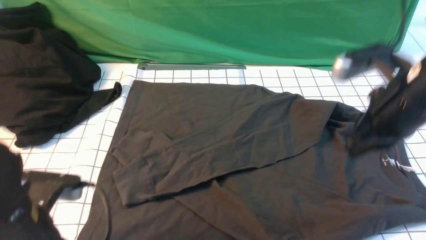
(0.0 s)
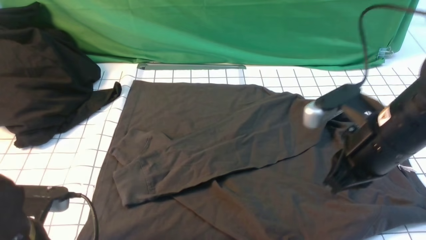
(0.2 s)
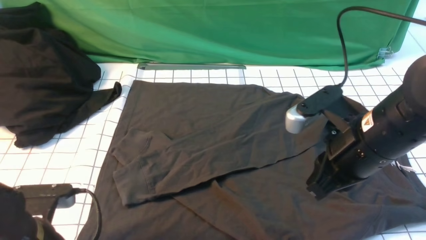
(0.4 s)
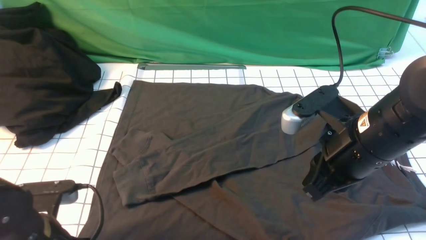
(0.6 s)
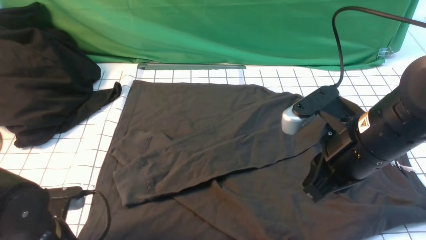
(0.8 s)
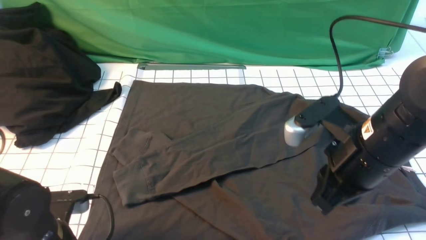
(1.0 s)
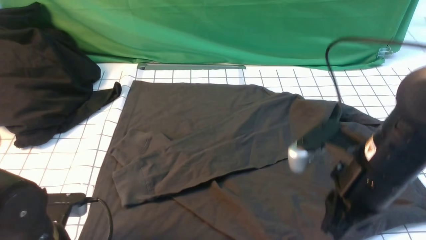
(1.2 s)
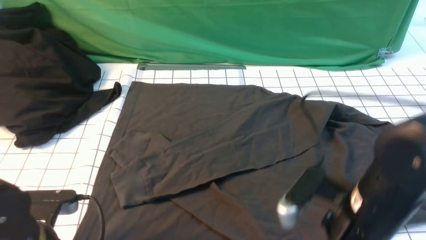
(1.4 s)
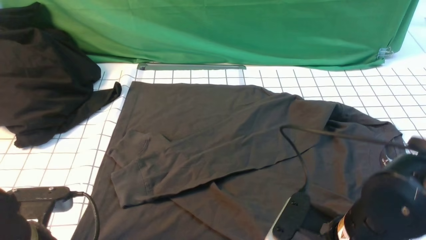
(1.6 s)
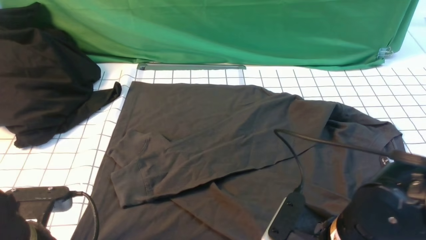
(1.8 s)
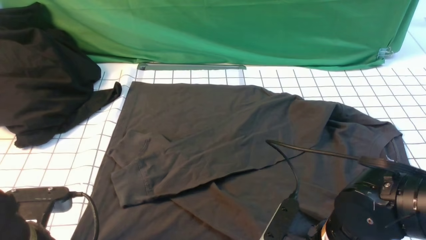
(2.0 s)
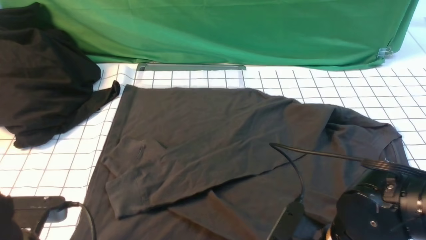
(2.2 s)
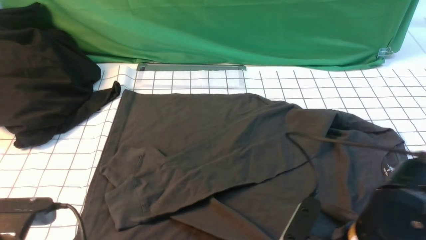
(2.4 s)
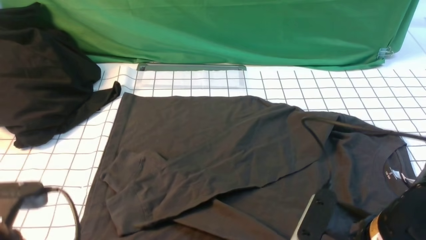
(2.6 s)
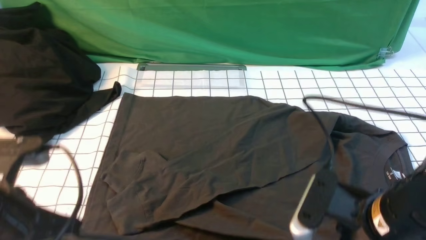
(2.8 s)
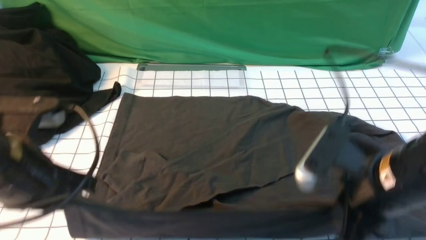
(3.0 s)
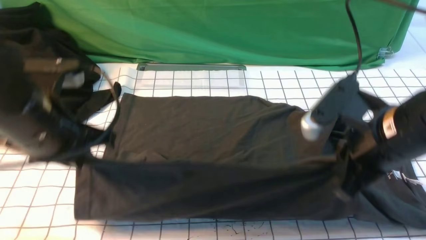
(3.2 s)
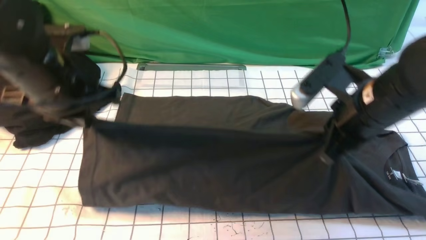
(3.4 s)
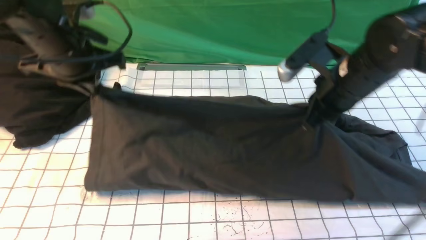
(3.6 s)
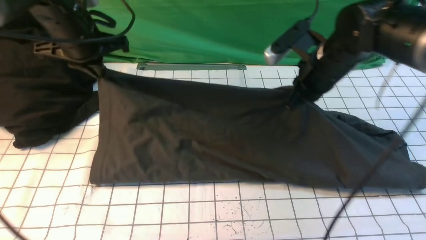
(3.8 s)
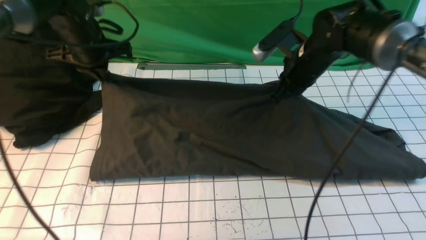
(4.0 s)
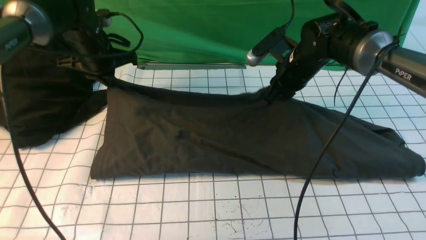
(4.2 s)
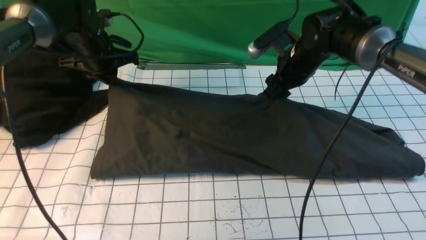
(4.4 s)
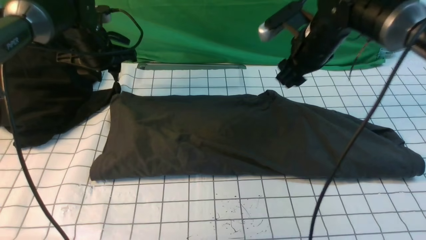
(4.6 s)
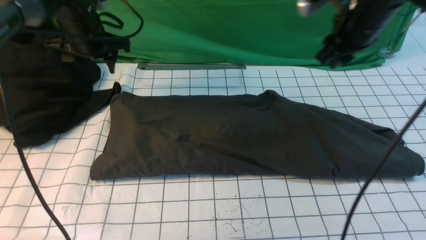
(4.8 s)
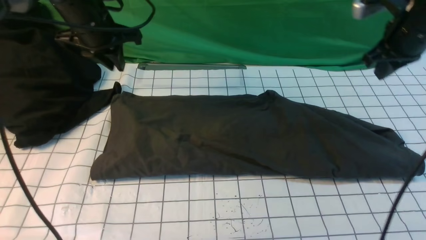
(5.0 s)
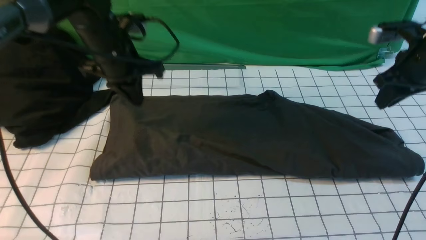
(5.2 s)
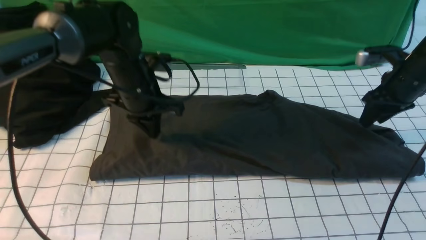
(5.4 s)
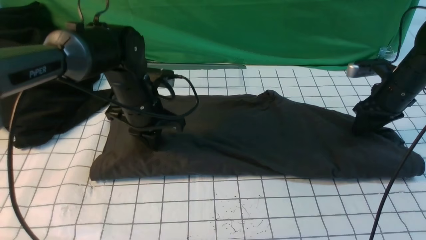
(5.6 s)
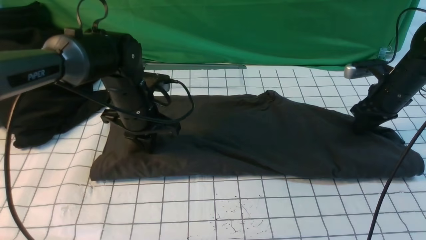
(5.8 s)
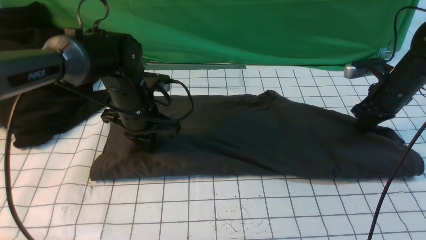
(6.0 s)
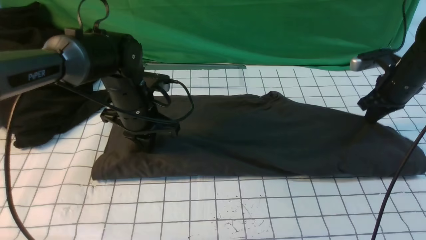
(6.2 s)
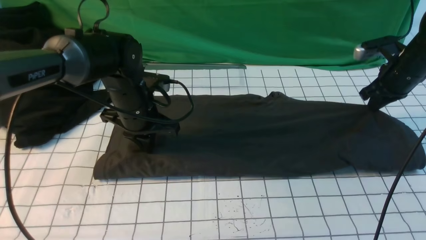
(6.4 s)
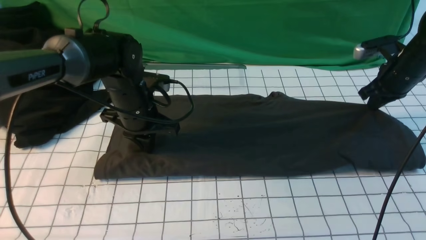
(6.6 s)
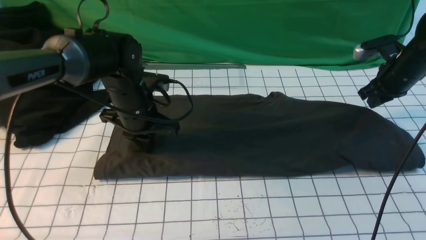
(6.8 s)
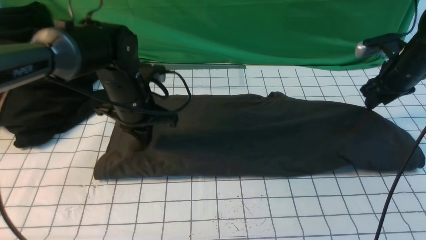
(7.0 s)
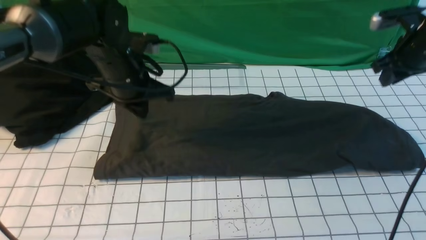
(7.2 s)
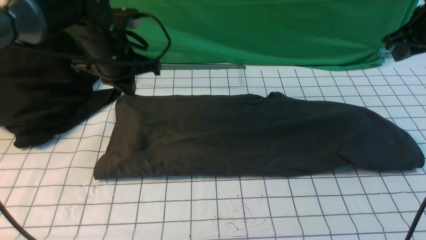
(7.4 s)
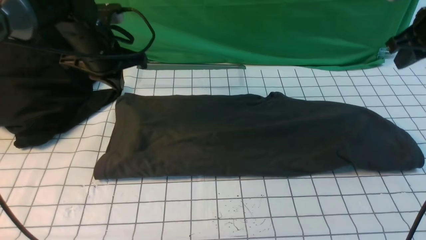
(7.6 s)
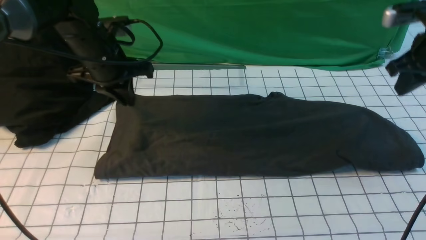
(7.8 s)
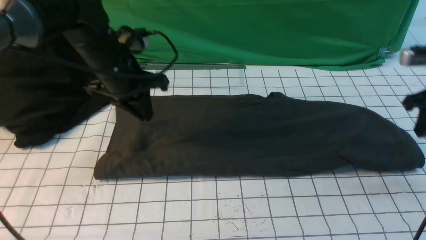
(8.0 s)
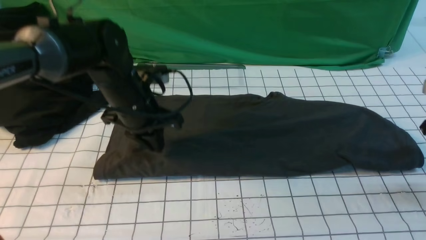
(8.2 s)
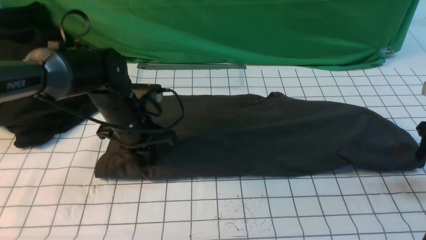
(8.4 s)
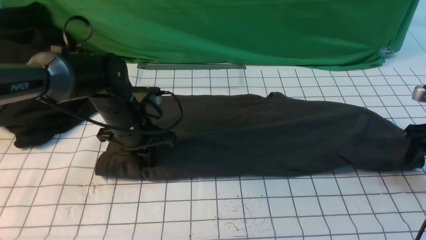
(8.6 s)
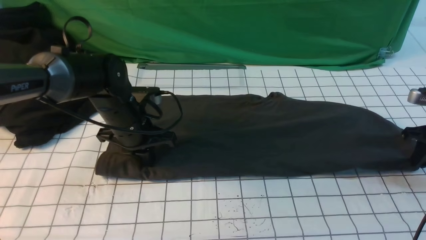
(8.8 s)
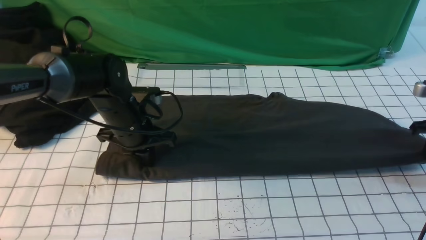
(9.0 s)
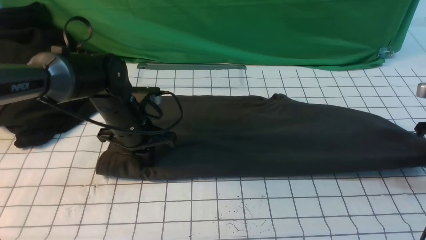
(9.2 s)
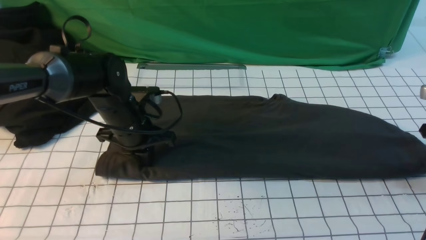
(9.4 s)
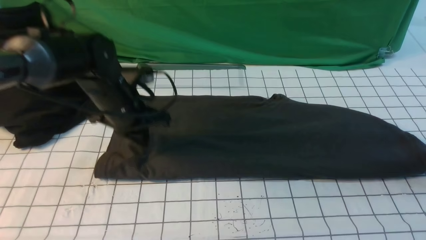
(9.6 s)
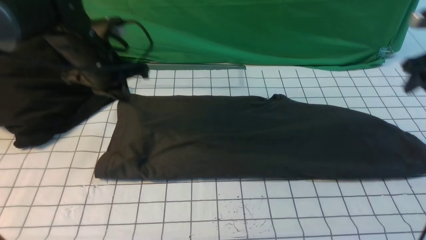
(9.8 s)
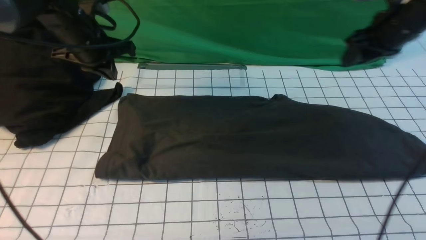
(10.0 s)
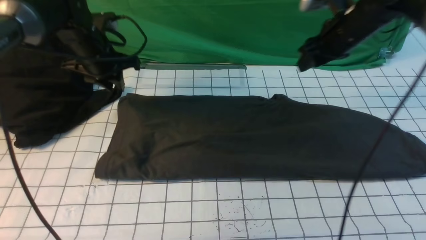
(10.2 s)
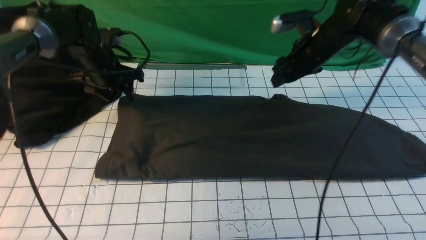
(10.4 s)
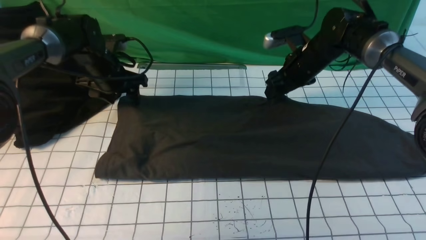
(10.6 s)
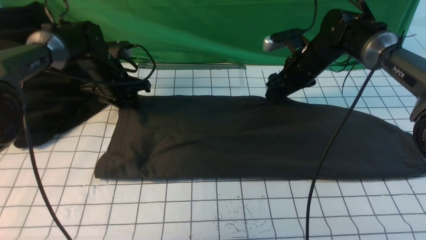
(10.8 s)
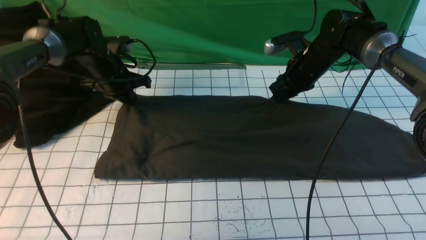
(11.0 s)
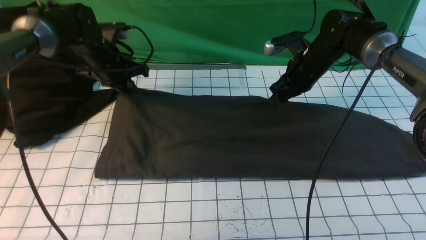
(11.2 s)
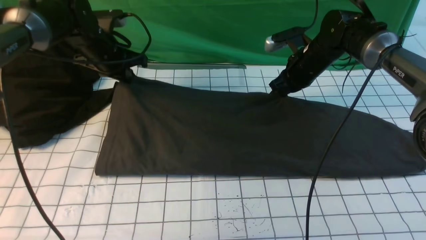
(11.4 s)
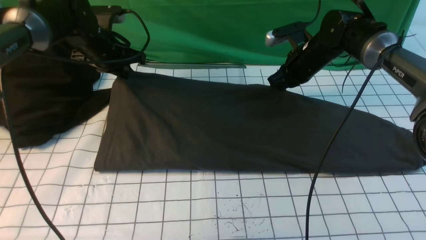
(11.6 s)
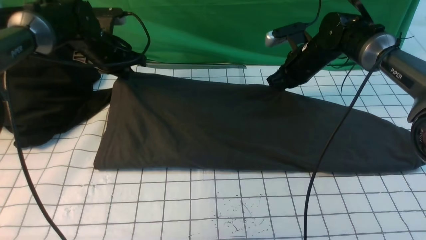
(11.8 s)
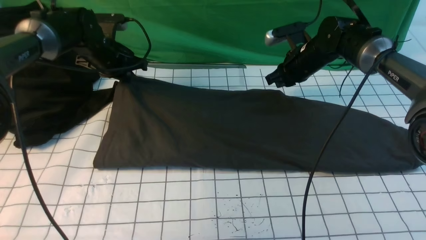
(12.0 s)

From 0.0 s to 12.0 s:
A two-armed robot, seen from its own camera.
Step, from 0.0 s to 2.4 s: use both arms simultaneously to clamp the lower edge of the clothing fabric.
Step, from 2.6 s to 4.6 s: use both arms to drag the lower edge of the fabric forward and fold it over the upper edge.
From 0.0 s to 1.6 s: The left gripper opens, then closes once more. The right gripper heads backward, downward and to the left, covering about 20 cm, and opens up.
From 1.6 s to 3.0 s: Both grippers travel together upward, some 10 cm. The right gripper closes up.
From 3.0 s to 4.4 s: The grippers both shift forward by roughly 30 cm. The right gripper opens up.
From 4.4 s to 6.0 s: The right gripper heads to the right, covering roughly 20 cm, and closes up, while the left gripper is displaced backward and to the right by roughly 15 cm, and closes its fingers.
From 6.0 s to 7.6 s: The right gripper goes about 15 cm upward, and opens and closes again, while the left gripper heads upward and to the left, covering approximately 10 cm.
From 7.6 s to 9.0 s: The right gripper goes approximately 15 cm downward and to the right, and opens, then closes again; the left gripper shifts roughly 10 cm downward and backward.
From 9.0 s to 10.4 s: The left gripper moves forward and to the left, some 15 cm, and opens; the right gripper heads to the left and forward, covering about 25 cm, and opens its fingers.
From 10.4 s to 12.0 s: The left gripper closes. The right gripper closes.

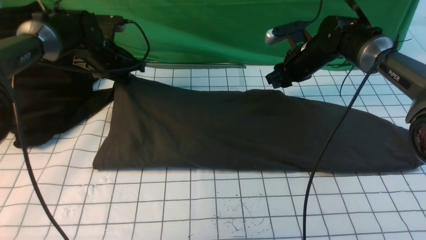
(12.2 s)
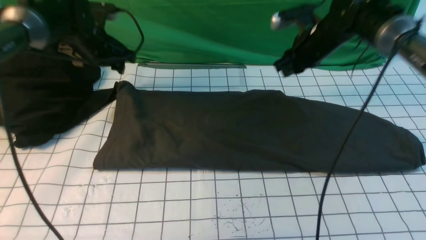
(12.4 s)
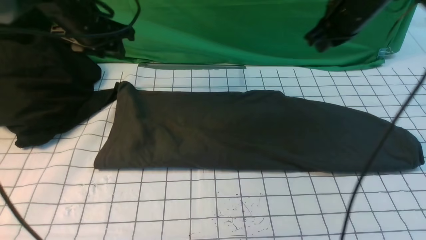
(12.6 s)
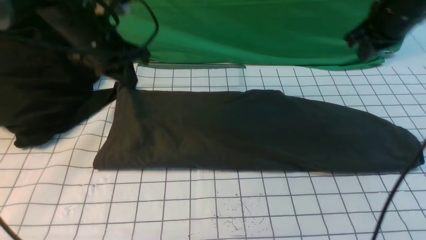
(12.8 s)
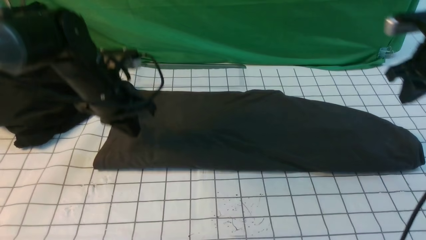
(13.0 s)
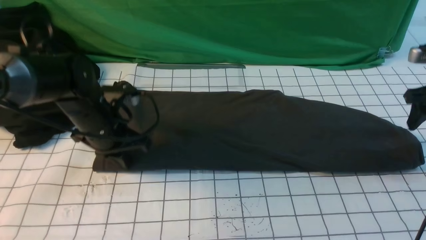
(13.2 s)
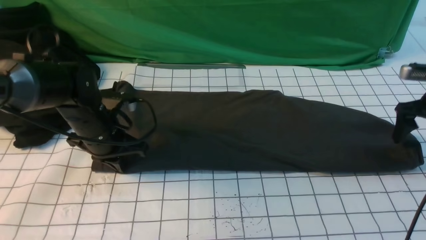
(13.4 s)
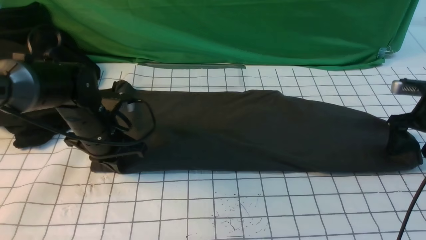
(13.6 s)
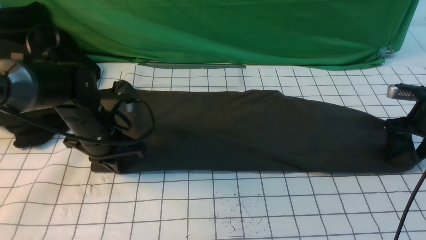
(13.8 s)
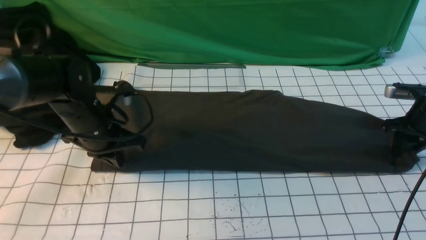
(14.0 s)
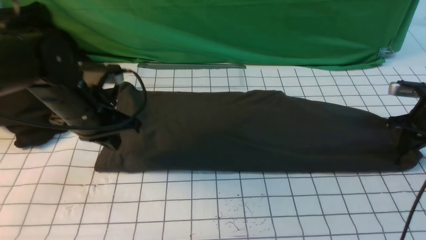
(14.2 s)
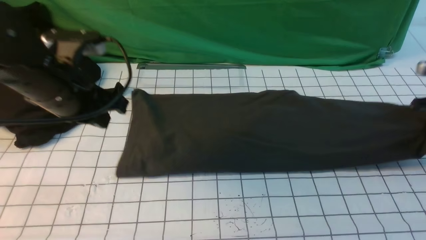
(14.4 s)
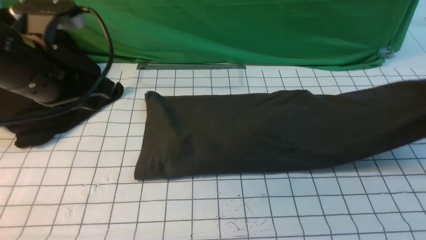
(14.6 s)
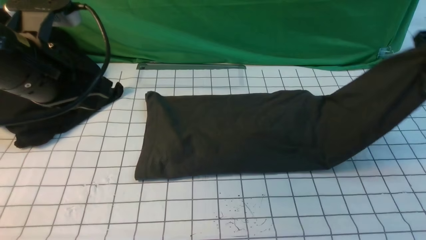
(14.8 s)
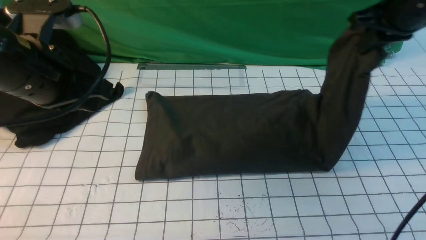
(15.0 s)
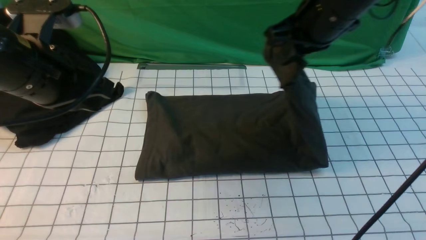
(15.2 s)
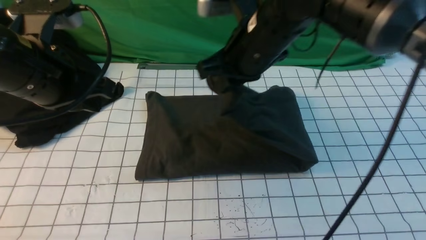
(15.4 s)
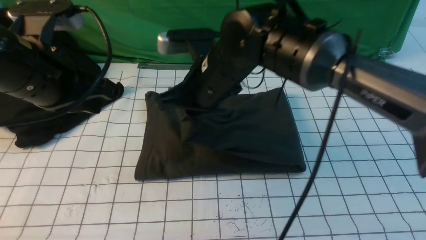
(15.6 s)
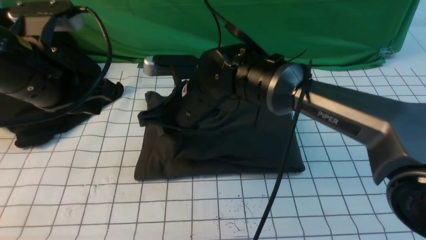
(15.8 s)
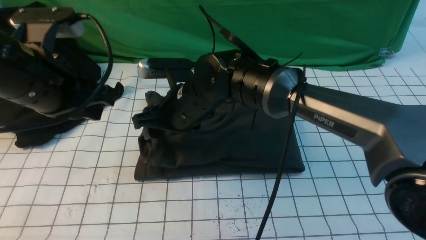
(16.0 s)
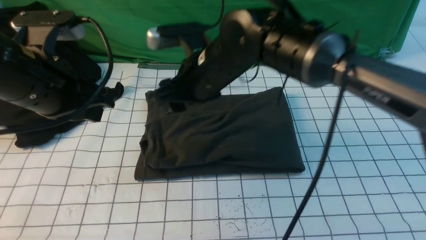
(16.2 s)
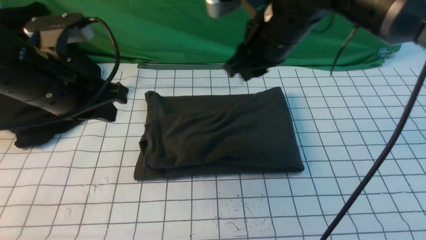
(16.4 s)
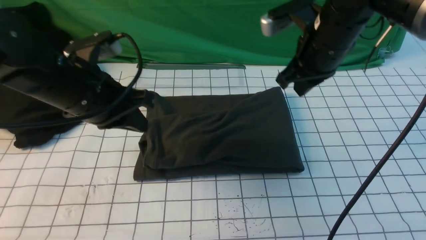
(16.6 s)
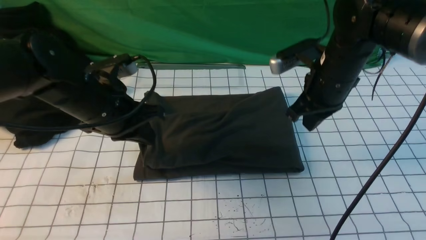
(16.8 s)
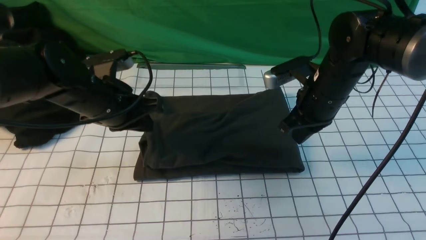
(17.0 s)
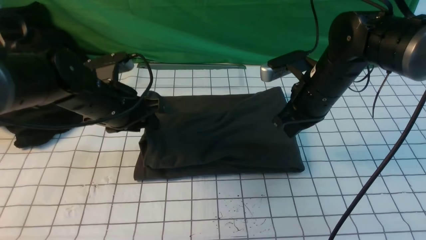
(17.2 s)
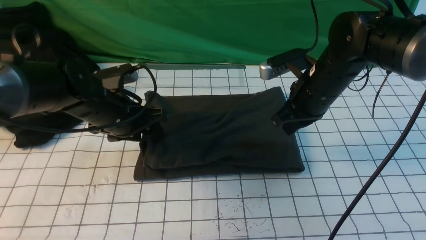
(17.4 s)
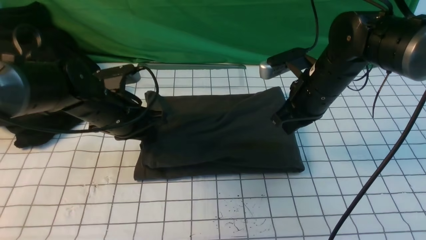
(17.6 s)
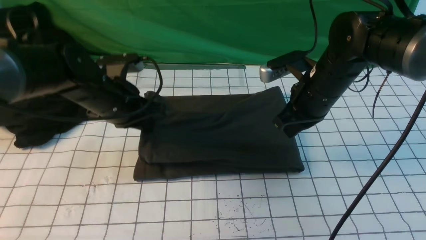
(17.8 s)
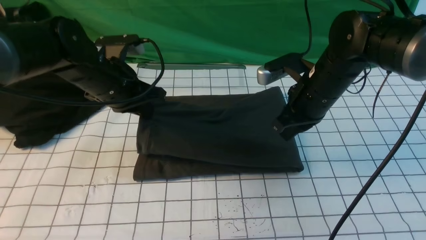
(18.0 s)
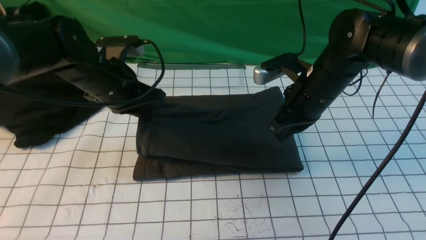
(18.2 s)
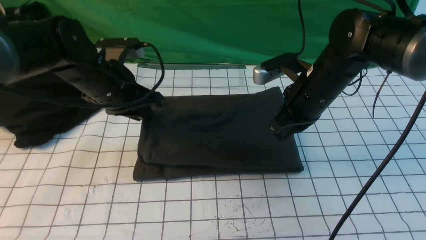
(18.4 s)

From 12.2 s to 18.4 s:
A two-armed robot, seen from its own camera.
Step, from 12.2 s to 14.4 s: use the right arm to clamp the right edge of the fabric.
Step, from 14.6 s to 16.2 s: use the right arm to drag the right edge of the fabric to the left and folds it over the left edge.
From 12.2 s to 13.8 s: The right gripper moves to the right and backward, about 25 cm, and opens up; the left gripper moves backward, roughly 15 cm, and closes.
From 13.8 s to 15.4 s: The right gripper moves to the left and upward, some 40 cm, and closes up. The left gripper is displaced upward and backward by roughly 20 cm.
From 15.4 s to 16.8 s: The right gripper moves to the right and downward, about 15 cm, and opens and closes again; the left gripper moves downward and forward, roughly 10 cm.
From 16.8 s to 18.4 s: The left gripper opens up.
